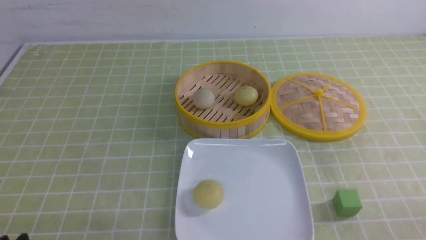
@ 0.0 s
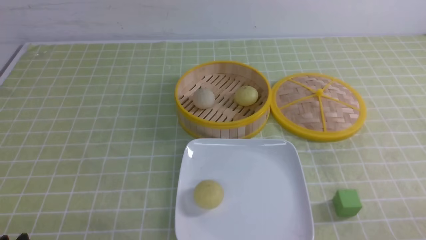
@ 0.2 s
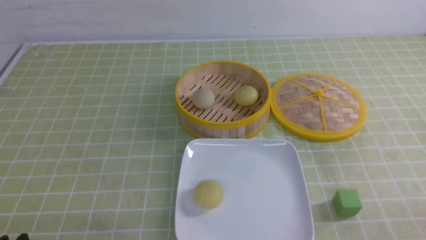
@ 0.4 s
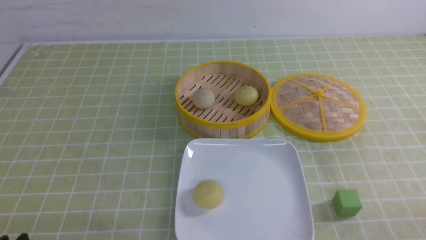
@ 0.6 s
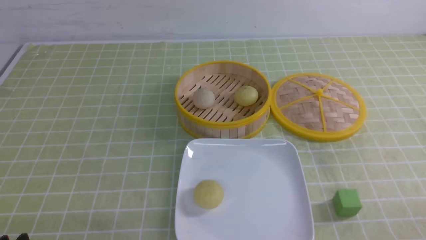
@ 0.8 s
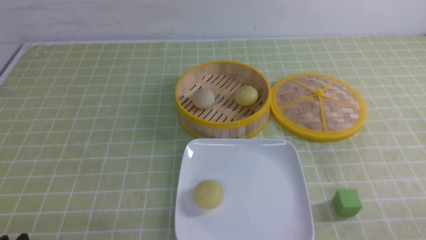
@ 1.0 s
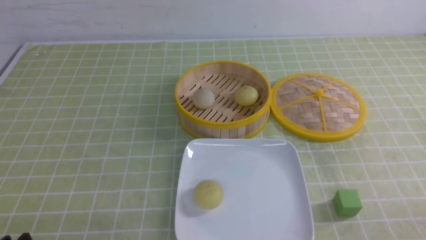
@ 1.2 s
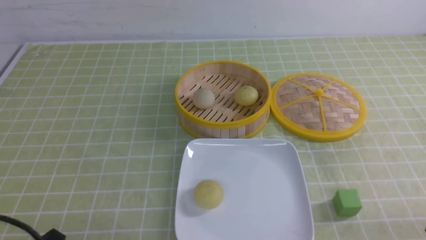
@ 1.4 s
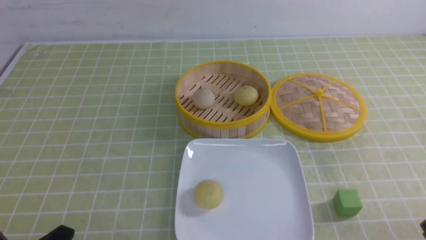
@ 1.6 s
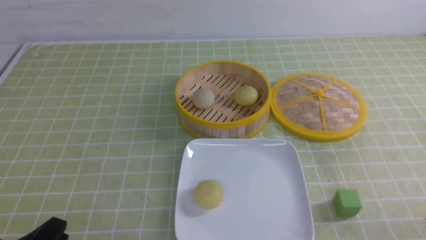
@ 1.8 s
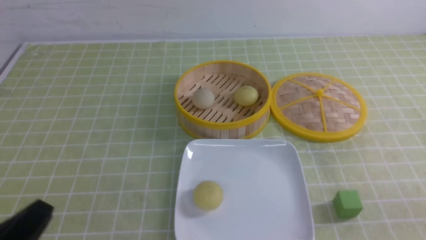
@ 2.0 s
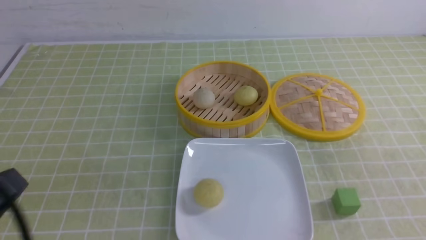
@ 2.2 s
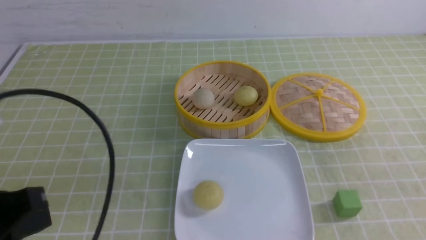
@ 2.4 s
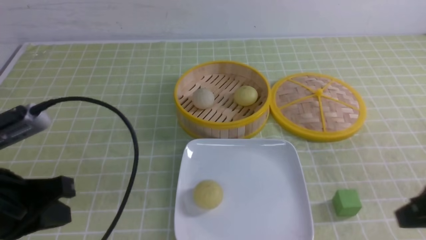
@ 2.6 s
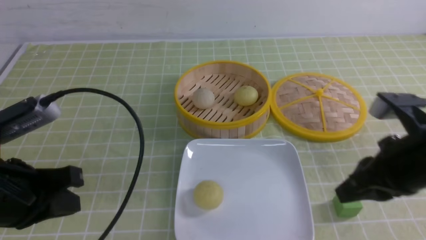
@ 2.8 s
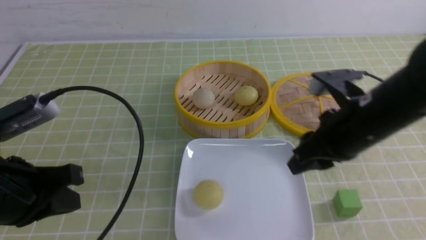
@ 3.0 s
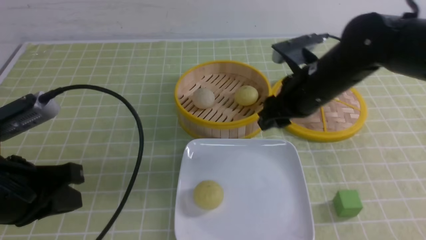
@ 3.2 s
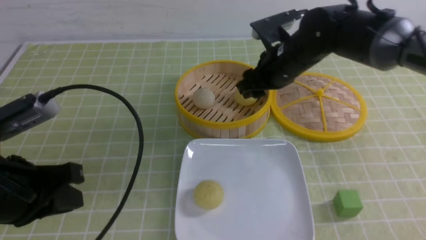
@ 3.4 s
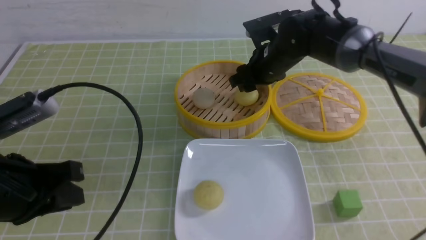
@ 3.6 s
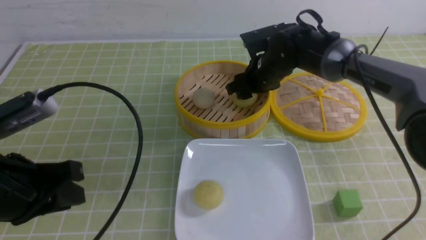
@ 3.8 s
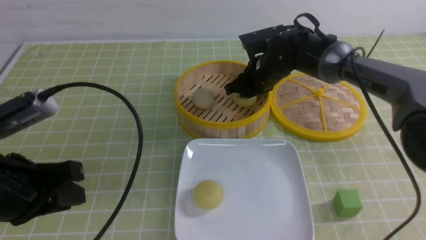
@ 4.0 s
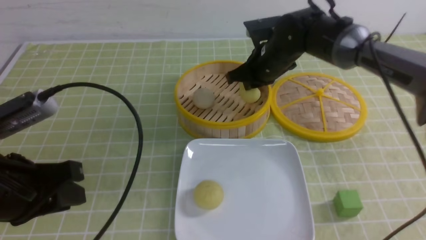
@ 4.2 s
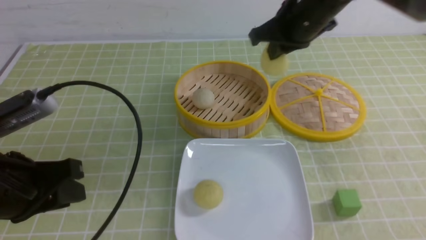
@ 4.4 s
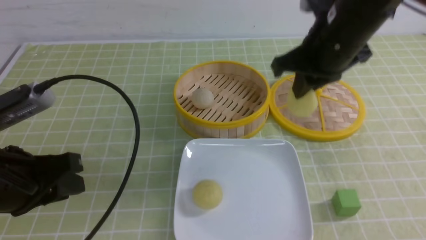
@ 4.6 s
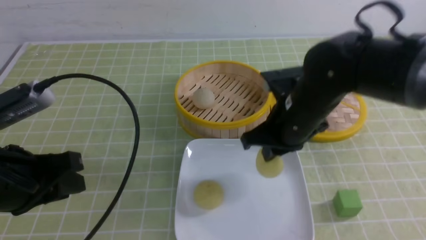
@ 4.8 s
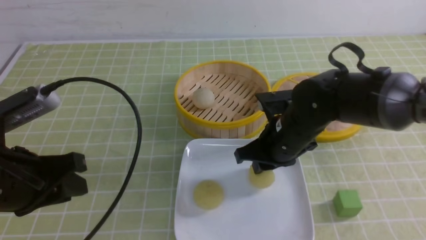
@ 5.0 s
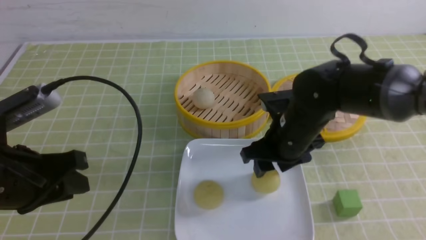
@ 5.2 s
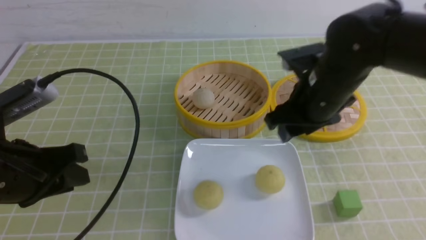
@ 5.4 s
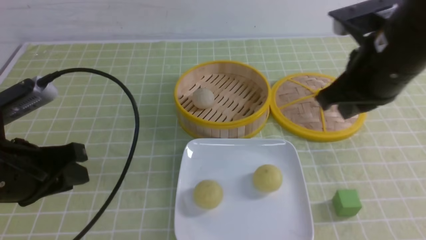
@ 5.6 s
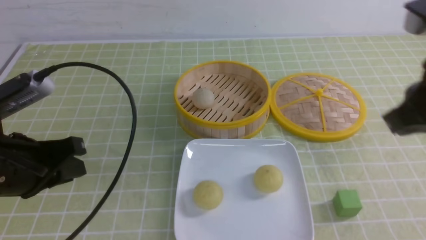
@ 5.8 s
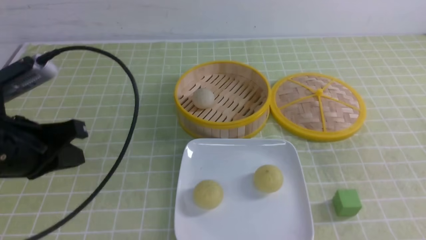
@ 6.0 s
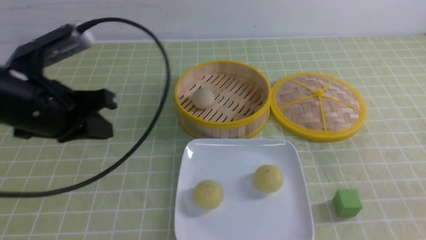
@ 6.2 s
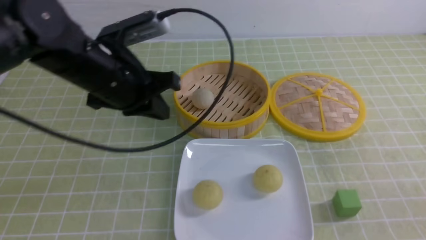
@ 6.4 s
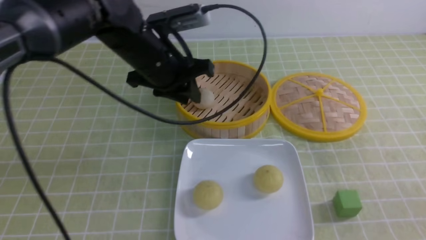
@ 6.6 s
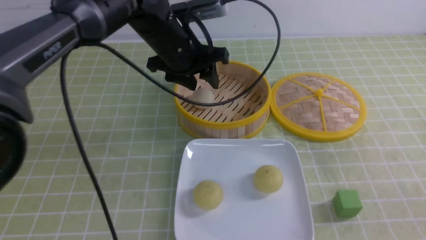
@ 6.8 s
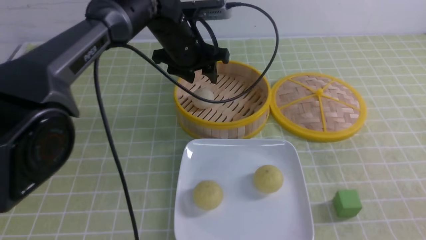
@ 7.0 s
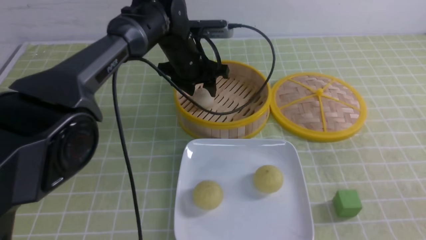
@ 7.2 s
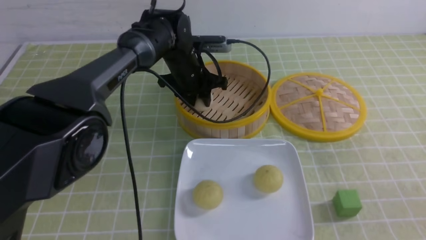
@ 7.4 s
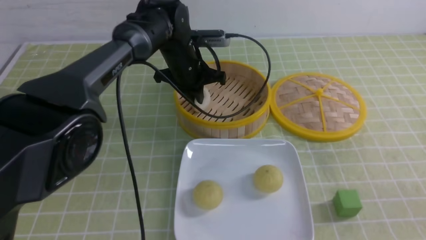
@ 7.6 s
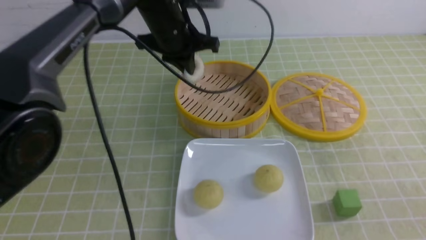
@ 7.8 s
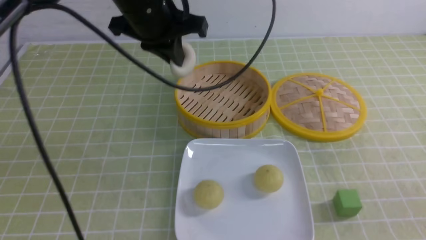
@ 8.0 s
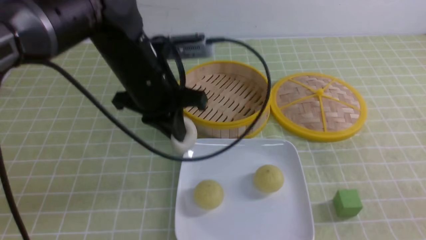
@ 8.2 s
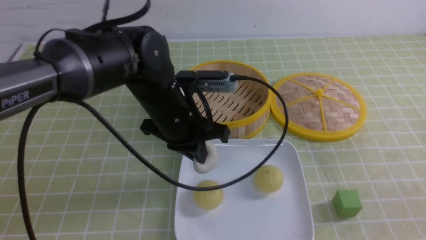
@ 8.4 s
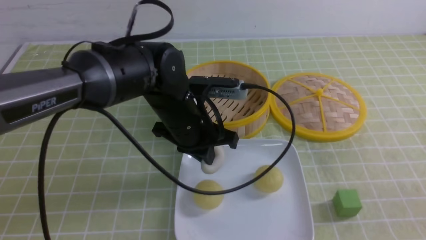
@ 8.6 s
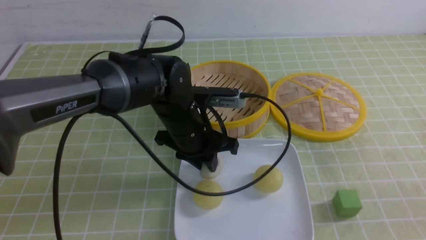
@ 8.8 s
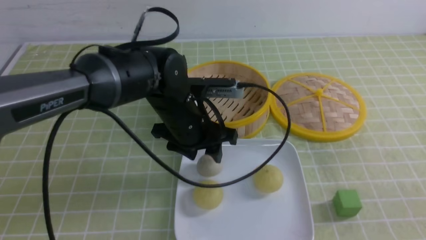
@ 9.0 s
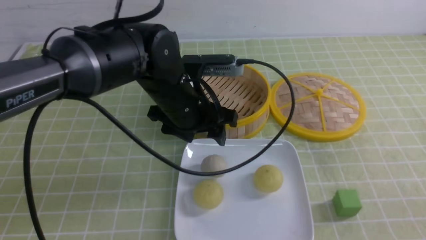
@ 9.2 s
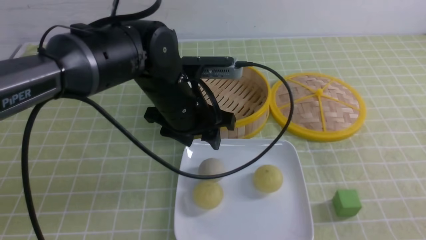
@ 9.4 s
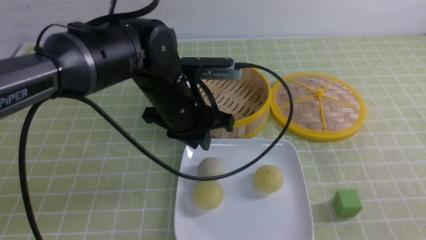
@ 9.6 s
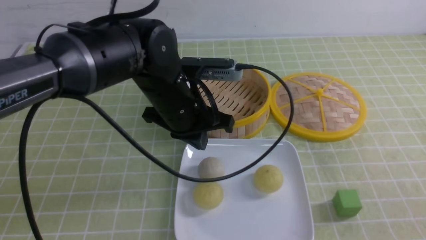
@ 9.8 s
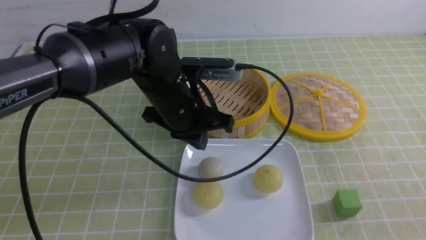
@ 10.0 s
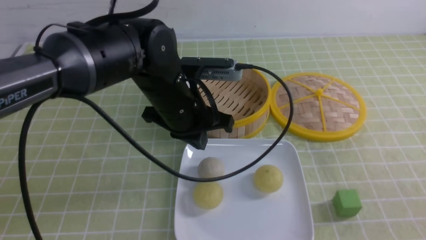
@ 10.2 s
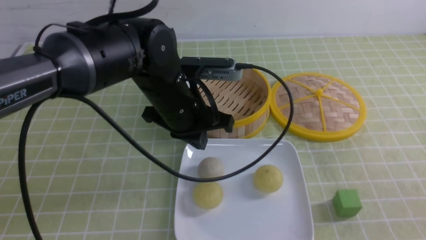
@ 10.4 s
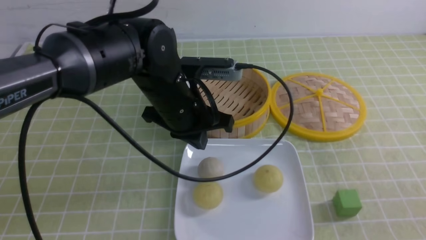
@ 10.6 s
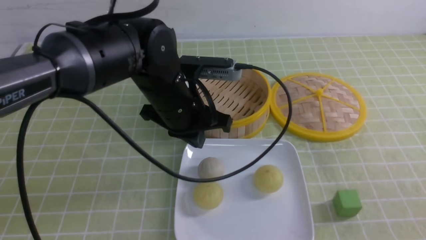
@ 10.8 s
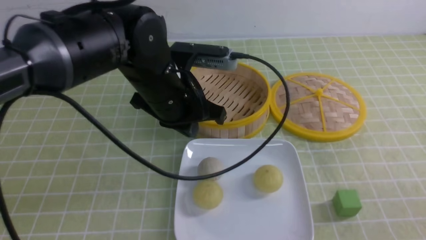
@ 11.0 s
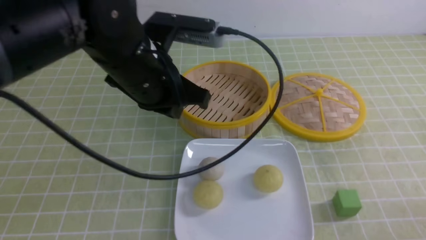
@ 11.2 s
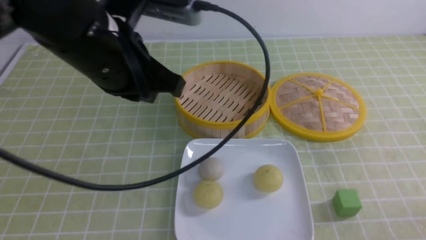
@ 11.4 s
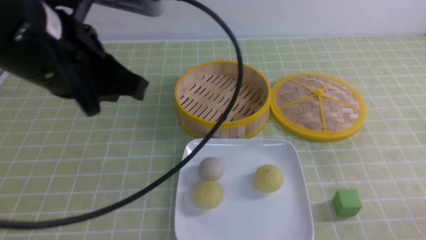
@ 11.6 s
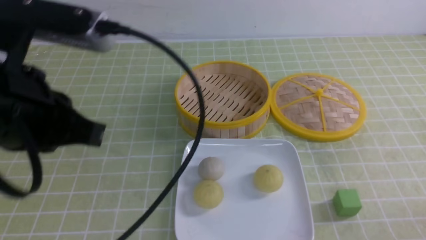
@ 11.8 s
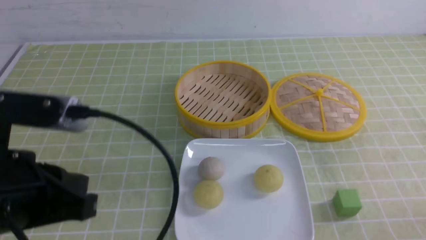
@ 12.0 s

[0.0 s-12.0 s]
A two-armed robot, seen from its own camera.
Step, 0.0 to 4.0 s: use the right arm to grab the steamed stuffed bun that is closest to it.
Step, 4.2 to 5.0 s: use the right arm to put the steamed stuffed bun into the plate.
Step, 5.2 to 7.4 s: use the left arm to grab the steamed stuffed bun that is closest to it.
Step, 7.6 to 9.0 s: use the left arm to put the steamed stuffed bun into the plate.
1.6 to 3.0 s: The left gripper heads forward and upward, covering roughly 15 cm, and closes its fingers. Meanwhile the right gripper is displaced forward, to the left and upward by approximately 30 cm, and closes, then reopens.
3.0 to 4.4 s: The left gripper opens up, while the right gripper shifts approximately 10 cm forward, and closes up.
4.4 to 6.0 s: The left gripper goes roughly 5 cm forward, and closes up; the right gripper travels backward and to the right by some 30 cm, and opens and closes again.
6.0 to 7.6 s: The left gripper shifts approximately 30 cm forward and to the right, and opens and closes again. The right gripper travels downward and backward by roughly 10 cm.
7.6 to 9.0 s: The left gripper goes approximately 15 cm backward, and opens up.
9.0 to 10.4 s: The left gripper closes.
10.4 to 12.0 s: The left gripper shifts approximately 25 cm backward and to the left. Meanwhile the right gripper moves downward, about 10 cm.

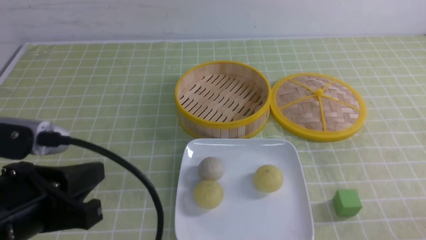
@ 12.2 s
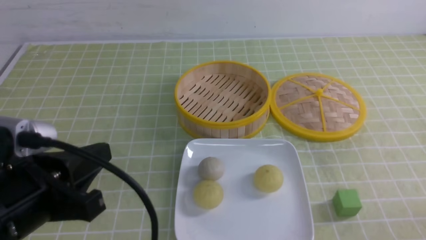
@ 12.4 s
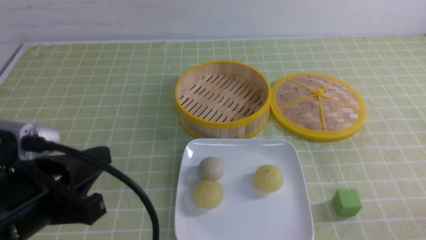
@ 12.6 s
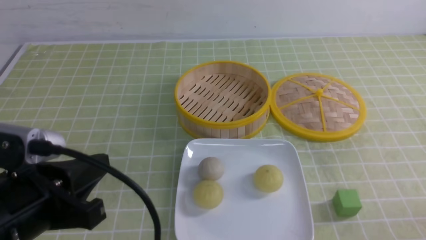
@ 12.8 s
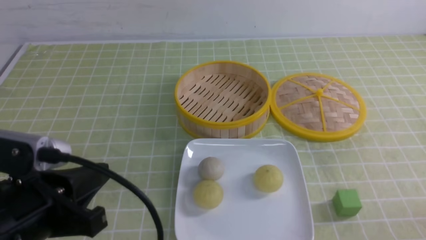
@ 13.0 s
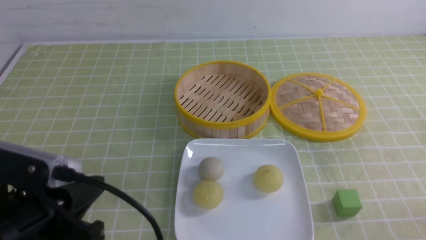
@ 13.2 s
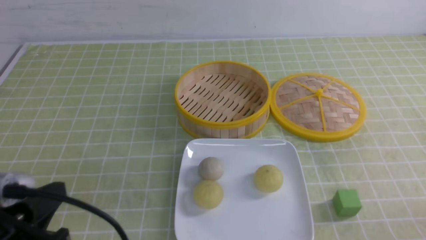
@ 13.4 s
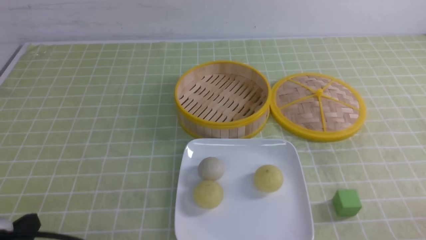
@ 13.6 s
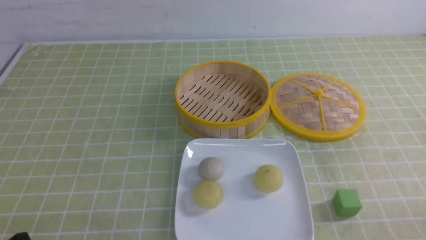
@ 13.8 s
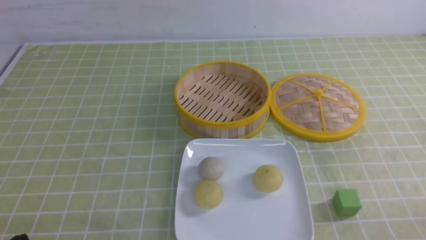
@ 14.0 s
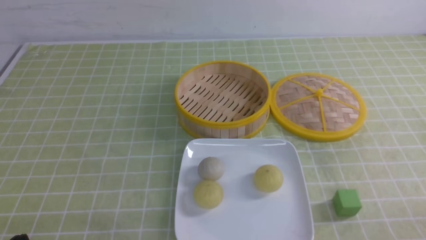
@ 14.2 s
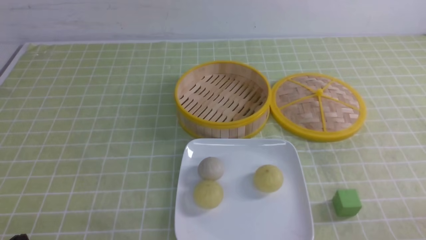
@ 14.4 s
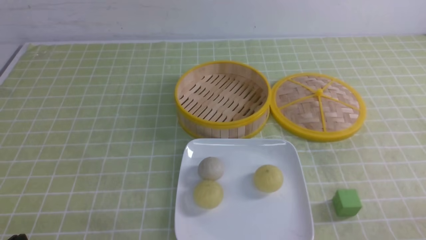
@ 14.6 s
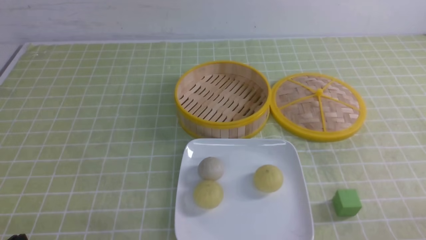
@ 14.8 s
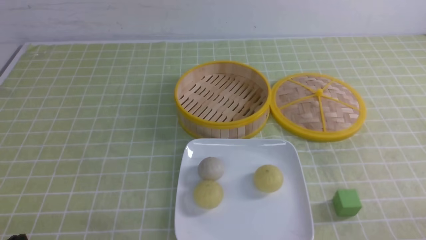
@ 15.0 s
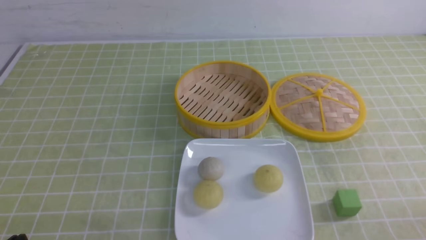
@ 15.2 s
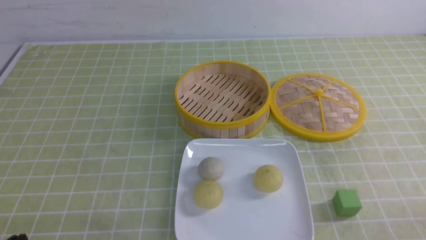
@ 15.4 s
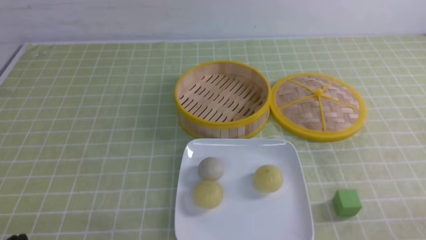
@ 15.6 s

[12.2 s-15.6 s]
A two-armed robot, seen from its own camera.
12.2 to 13.8 s: The left gripper moves downward, to the left and backward, about 15 cm.
13.8 to 15.6 s: Both grippers stay about where they are.
